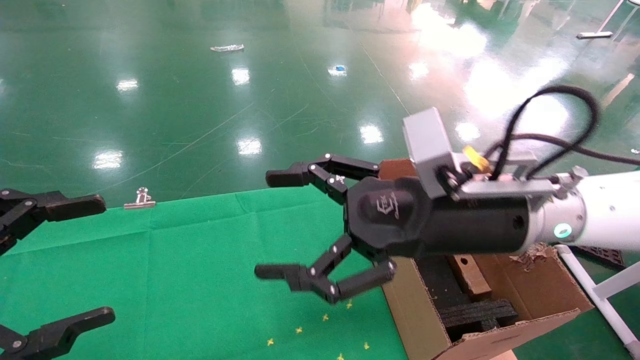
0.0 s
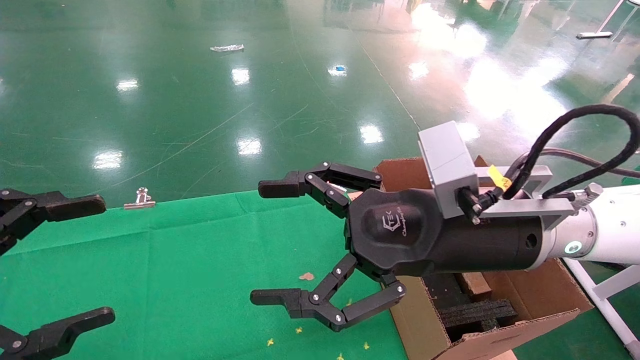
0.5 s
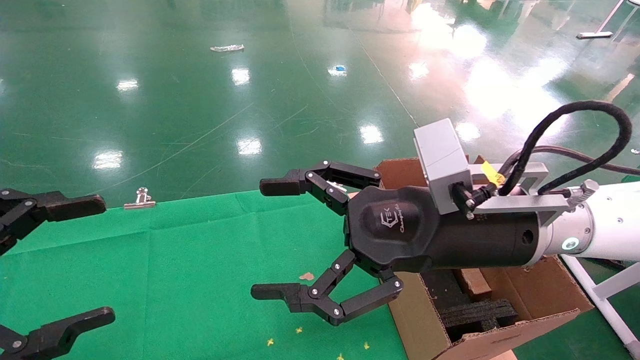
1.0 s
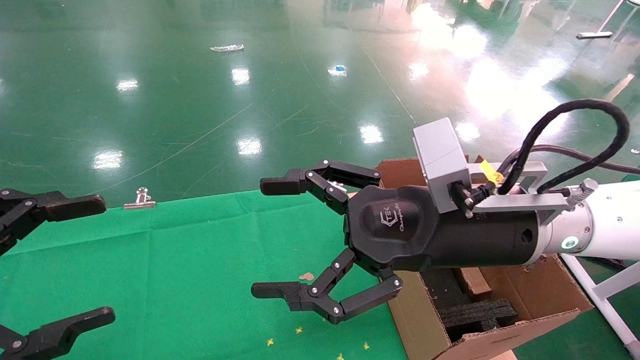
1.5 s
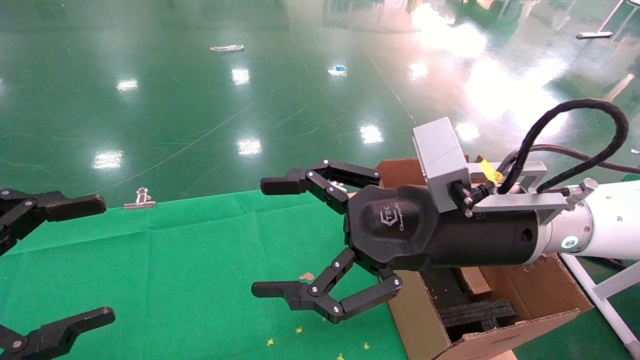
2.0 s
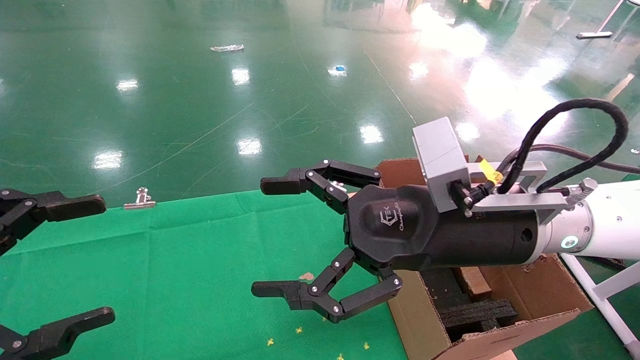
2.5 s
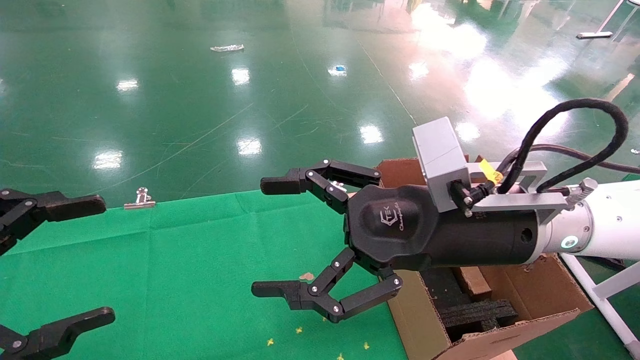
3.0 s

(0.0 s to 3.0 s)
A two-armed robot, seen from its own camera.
Task of the whole recording: using a robotic arm to pick up a cardboard box and palace it the carton.
0.0 s - 1.5 s: The grippers move only a little.
1.5 s - 3.0 s: Both grippers stay about where they are.

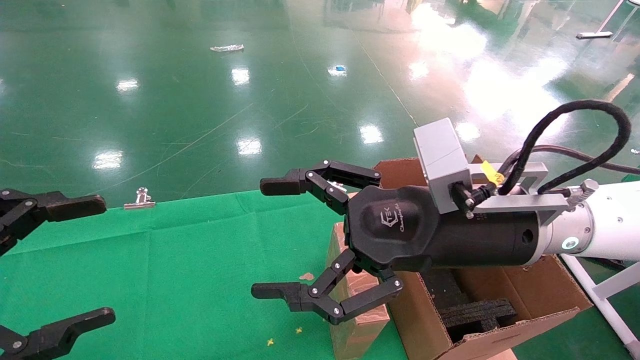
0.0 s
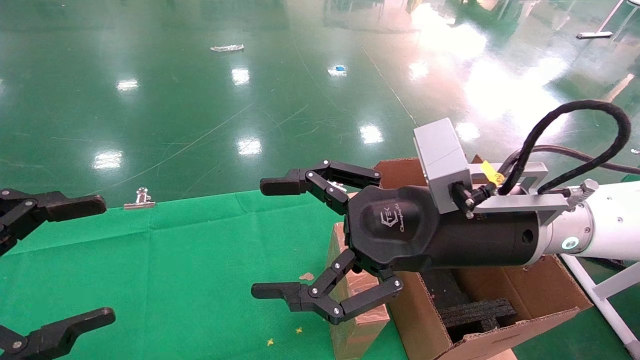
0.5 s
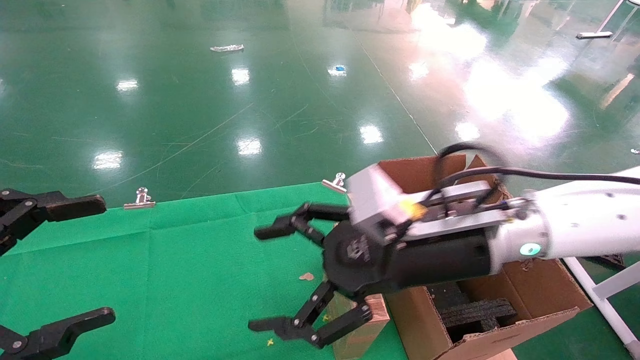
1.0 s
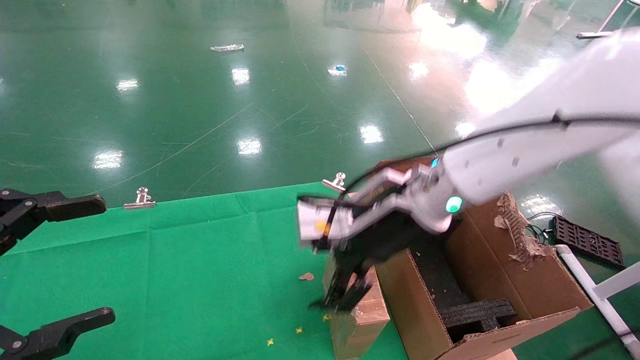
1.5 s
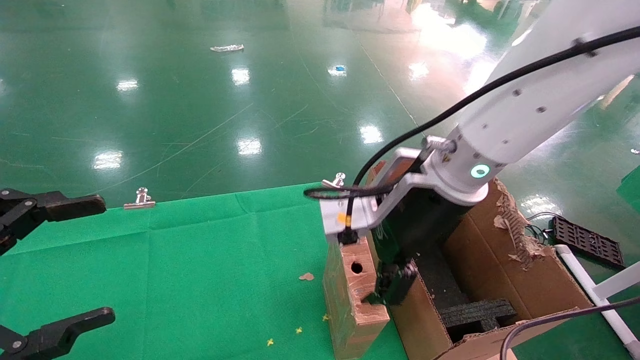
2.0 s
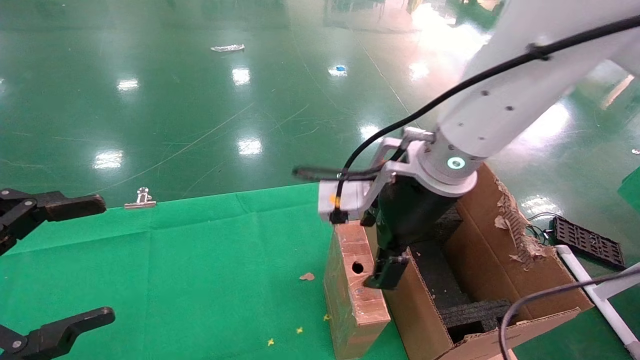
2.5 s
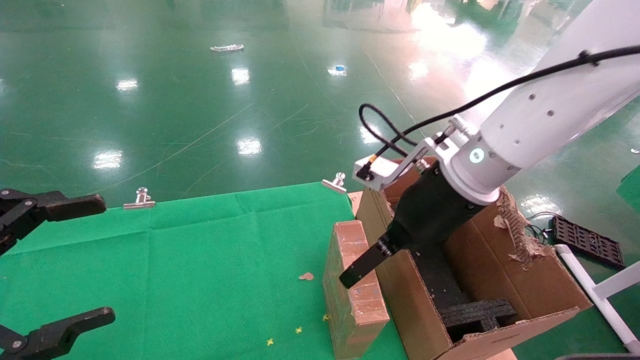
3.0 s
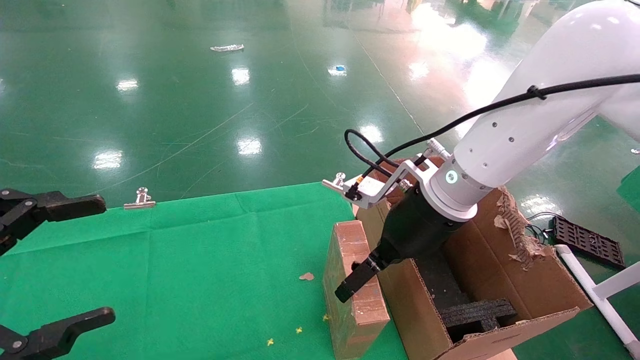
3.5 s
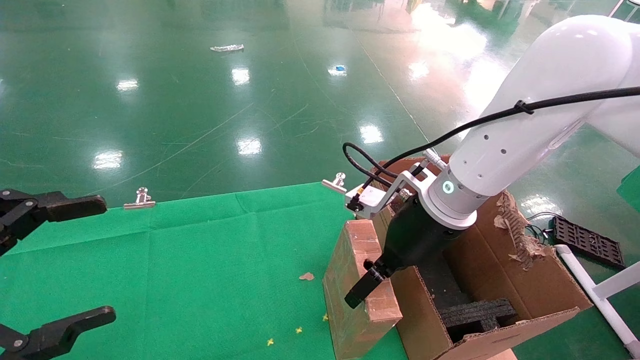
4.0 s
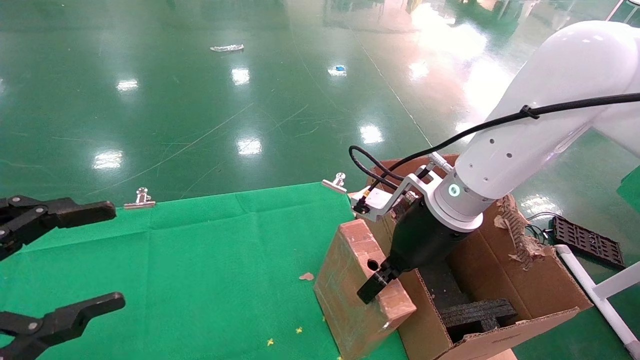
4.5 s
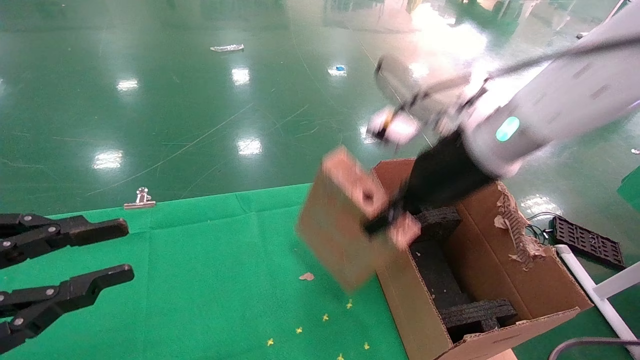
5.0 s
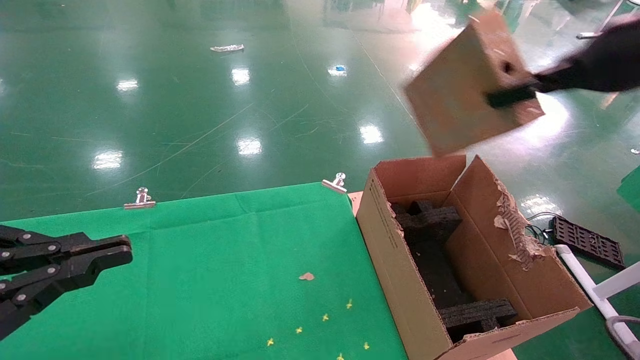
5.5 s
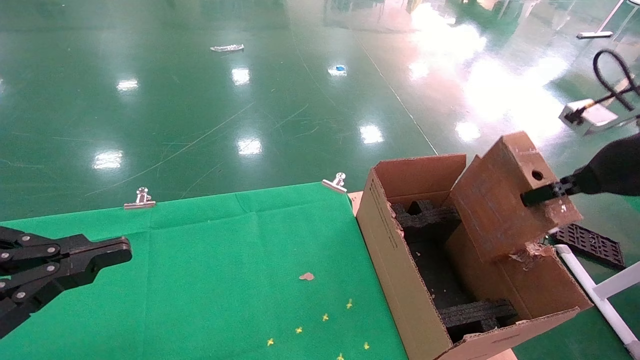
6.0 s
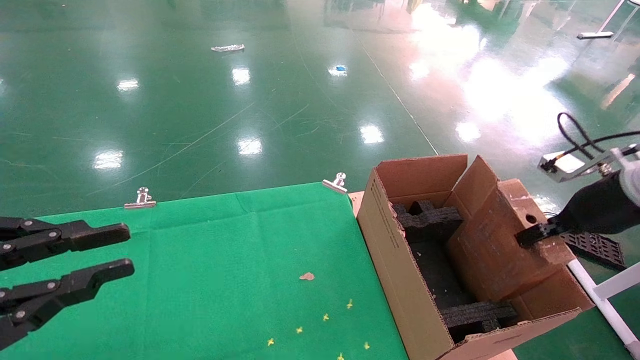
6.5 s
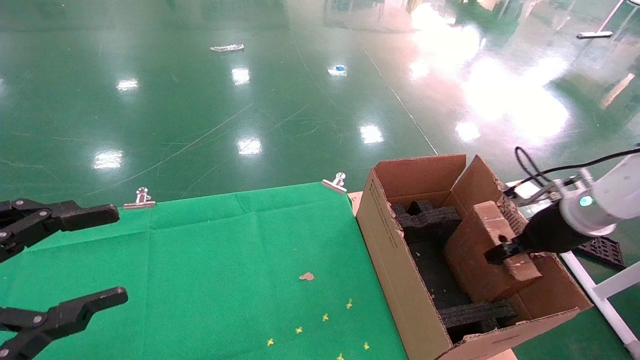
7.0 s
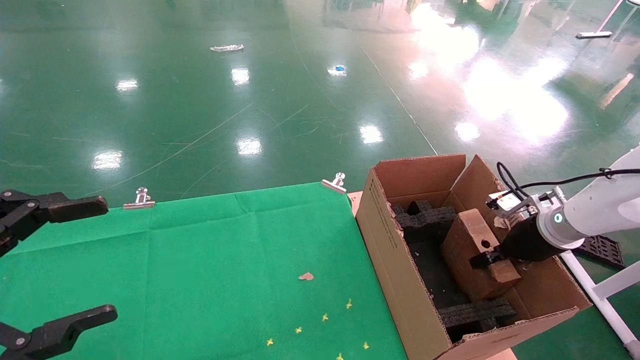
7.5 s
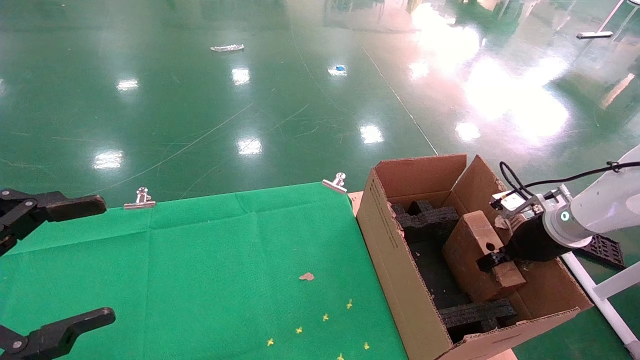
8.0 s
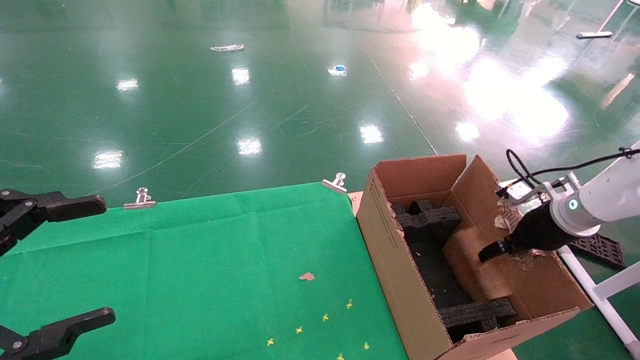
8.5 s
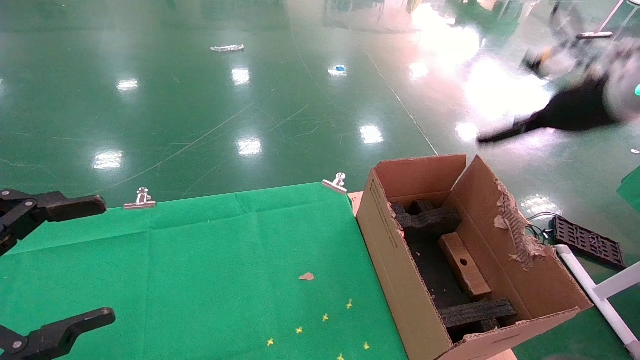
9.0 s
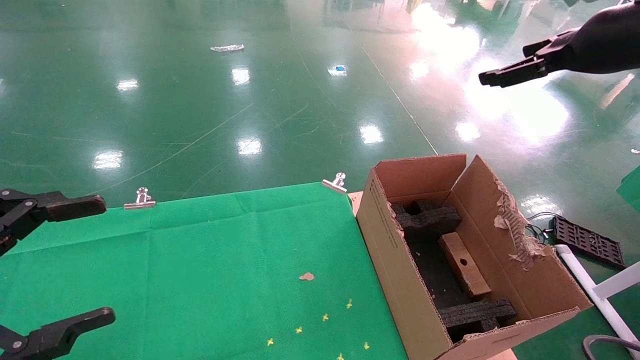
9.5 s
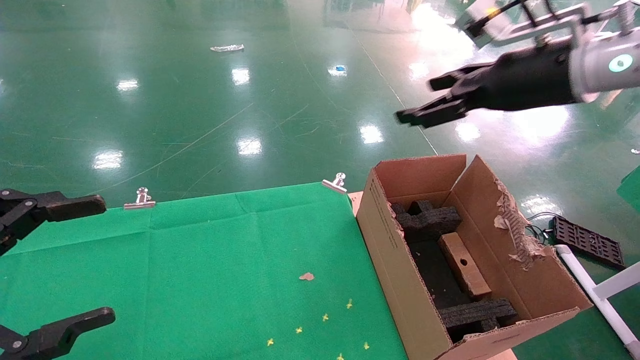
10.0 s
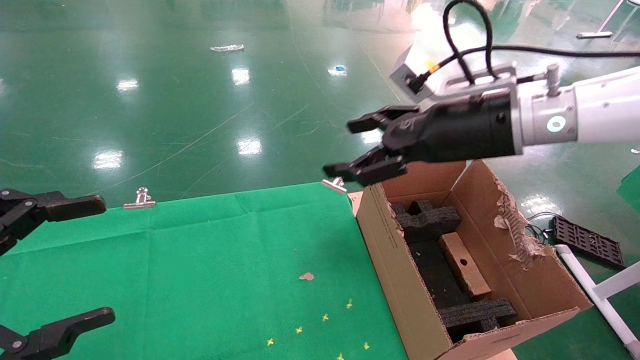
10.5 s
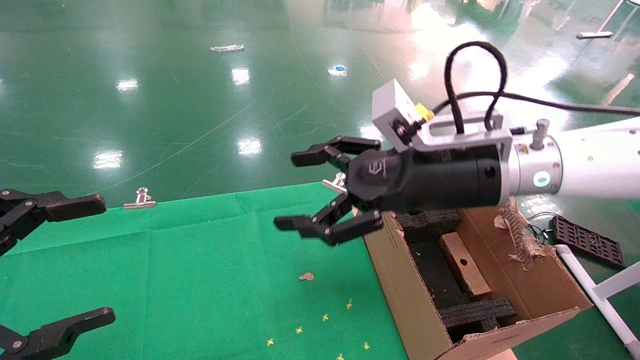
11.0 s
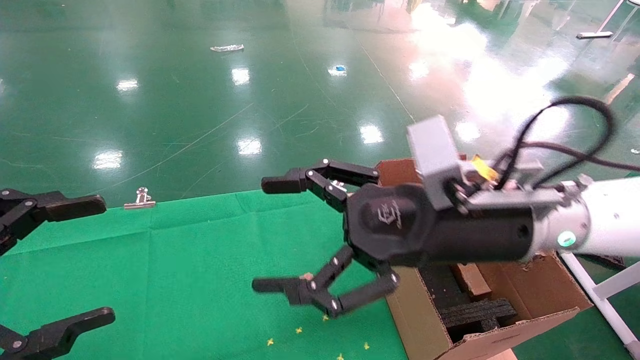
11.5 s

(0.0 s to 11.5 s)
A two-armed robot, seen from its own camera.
Task of the whole recording: using a robotic arm to pick up a cardboard box and palace it the carton.
Step, 1.0 s - 4.5 s: Pick up the mouse and the power cord paper box.
Step, 5.0 s - 8.5 s: Place the mouse and the power cord paper box into the container.
0.0 s - 2.0 s: The right gripper is displaced forward by approximately 5 cm.
2.0 s - 4.0 s: The right gripper travels downward by some 5 cm.
4.0 s - 6.0 s: The left gripper closes up, while the right gripper travels to the right by some 25 cm, and closes.
6.0 s - 7.5 s: The right gripper travels downward and forward by approximately 20 cm. Meanwhile the left gripper opens up.
7.5 s - 9.5 s: The right gripper is displaced upward by roughly 30 cm, and opens its fingers.
9.5 s - 11.5 s: The right gripper shifts about 25 cm to the left and downward.

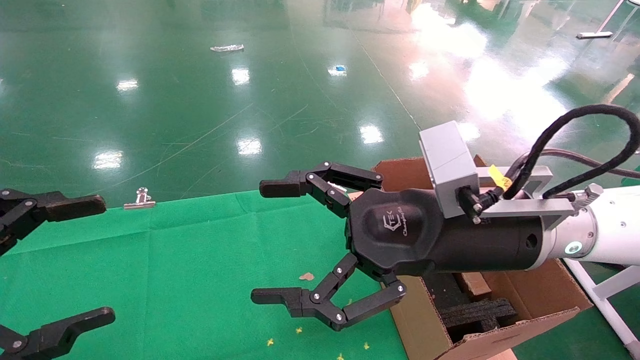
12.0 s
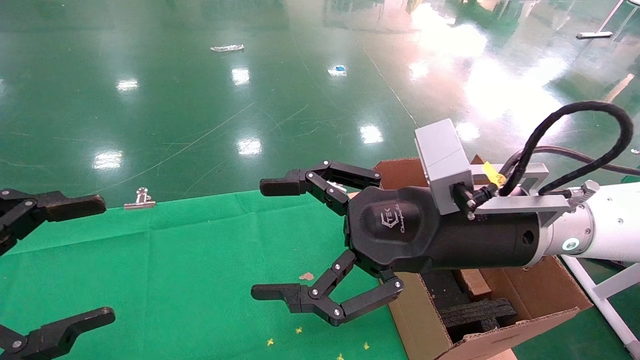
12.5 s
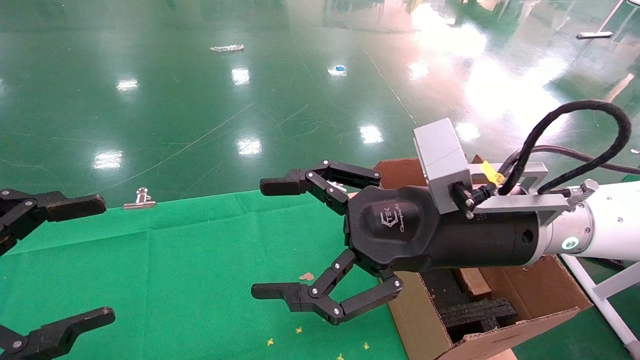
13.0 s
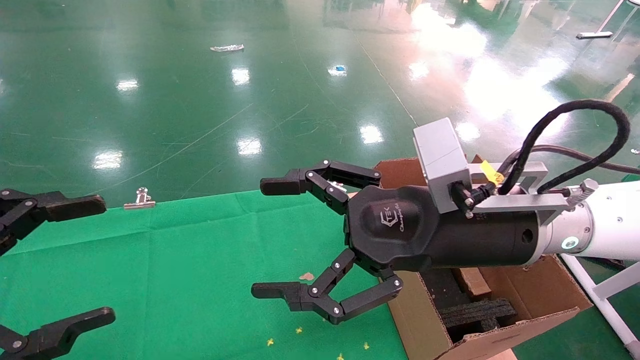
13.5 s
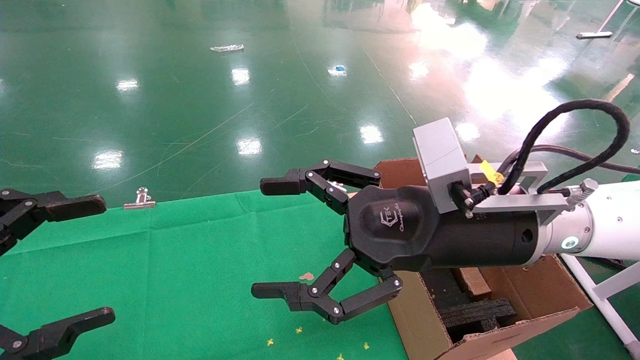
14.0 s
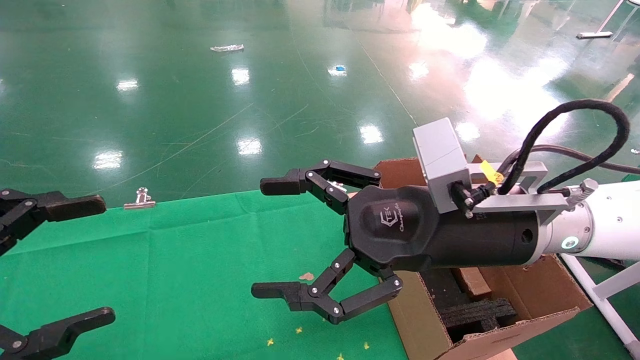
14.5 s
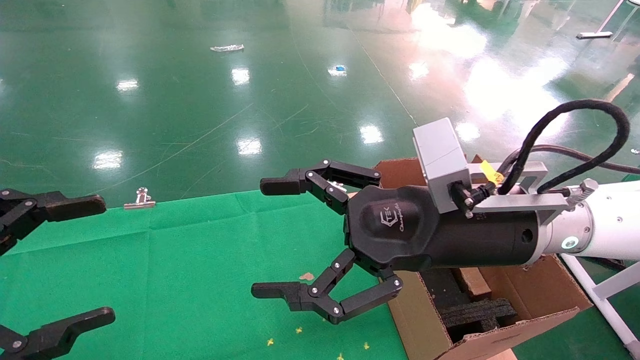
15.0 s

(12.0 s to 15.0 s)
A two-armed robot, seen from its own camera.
Task of the whole recording: using a robotic arm to pick up a cardboard box and palace it the carton.
12.0 s - 15.0 s: The two grippers keep their place.
